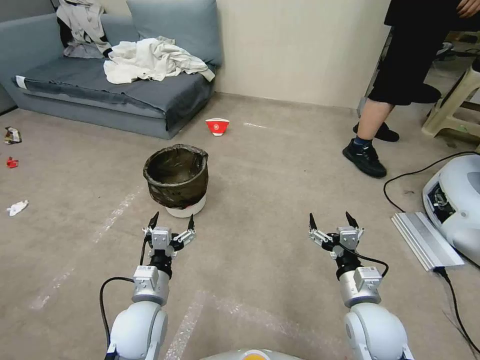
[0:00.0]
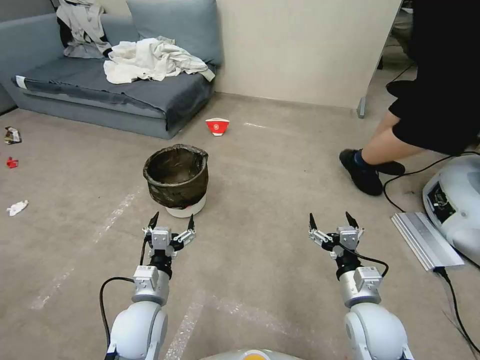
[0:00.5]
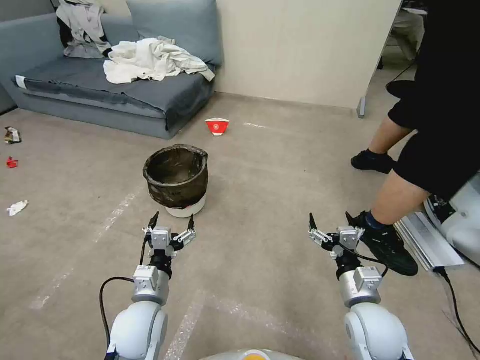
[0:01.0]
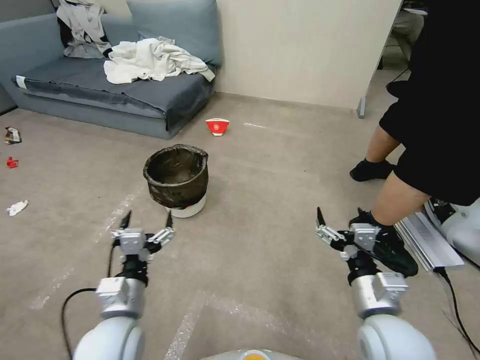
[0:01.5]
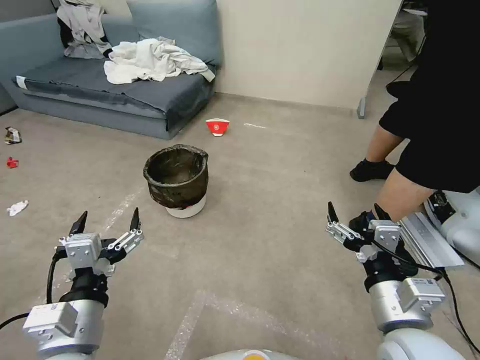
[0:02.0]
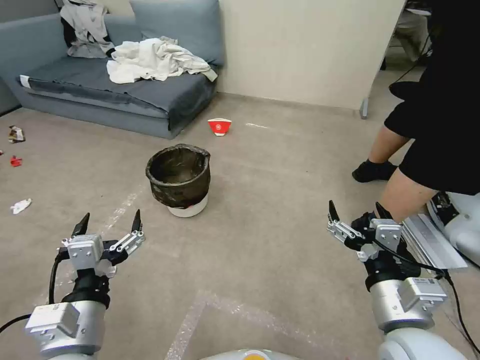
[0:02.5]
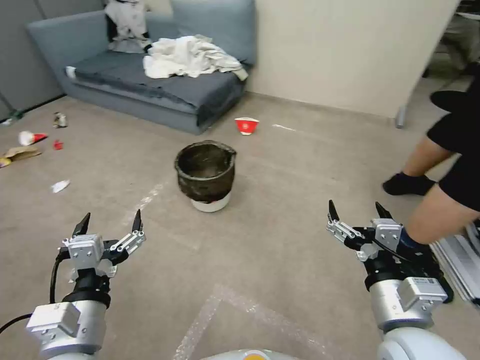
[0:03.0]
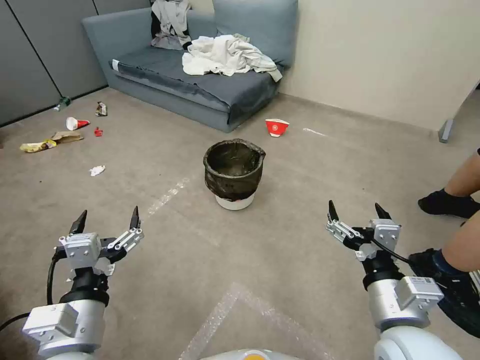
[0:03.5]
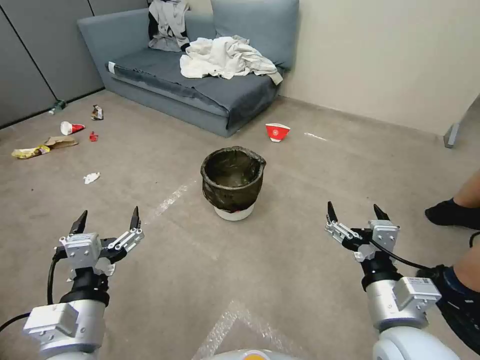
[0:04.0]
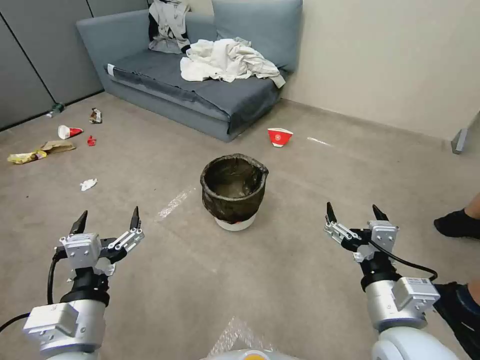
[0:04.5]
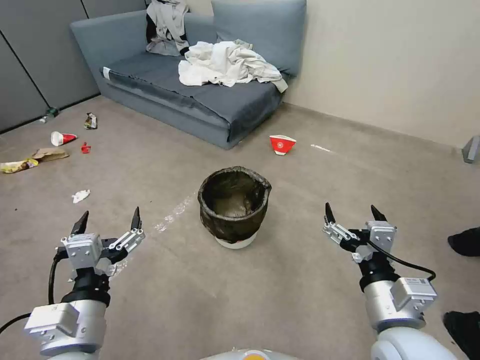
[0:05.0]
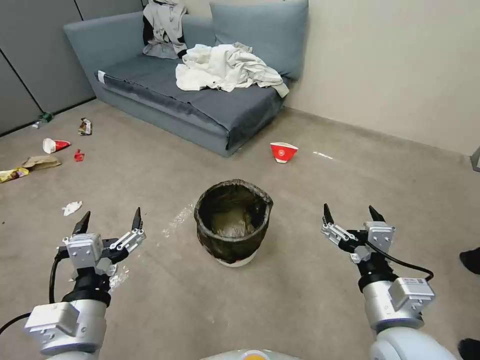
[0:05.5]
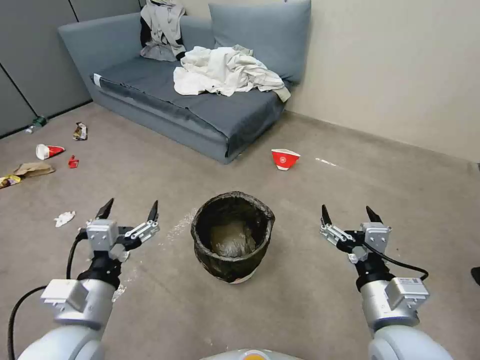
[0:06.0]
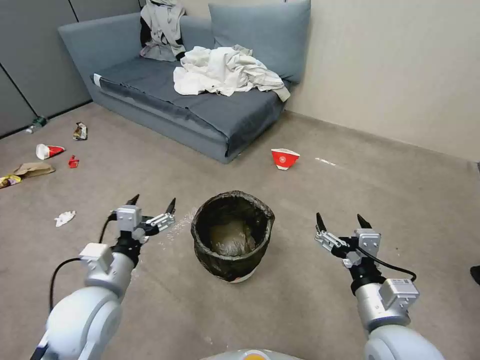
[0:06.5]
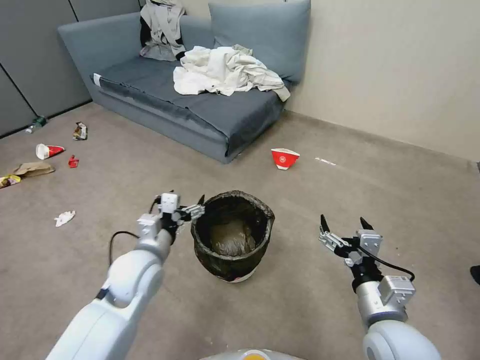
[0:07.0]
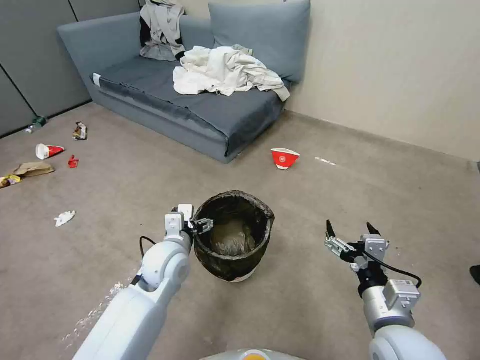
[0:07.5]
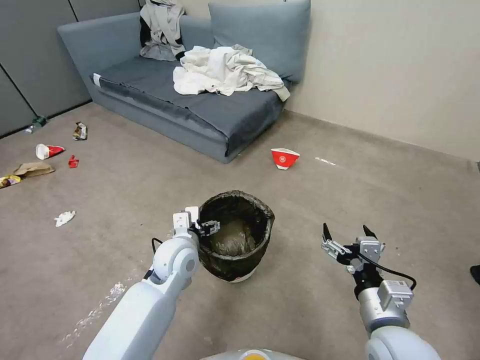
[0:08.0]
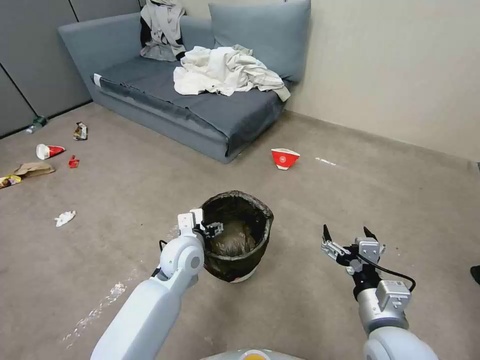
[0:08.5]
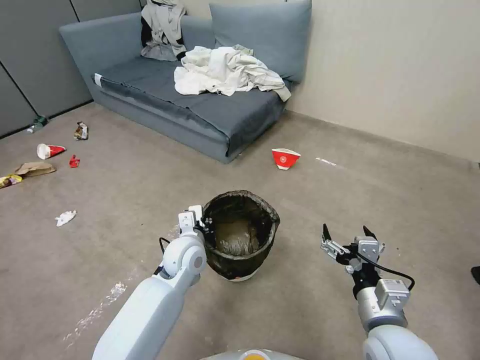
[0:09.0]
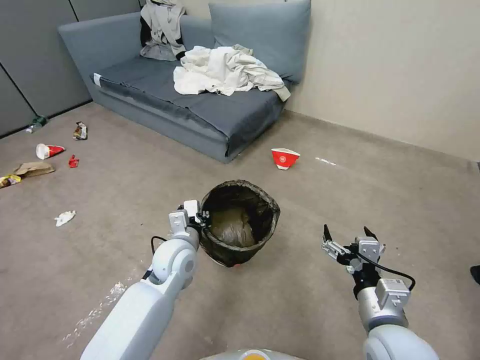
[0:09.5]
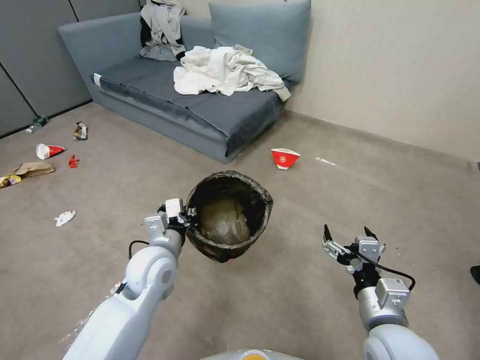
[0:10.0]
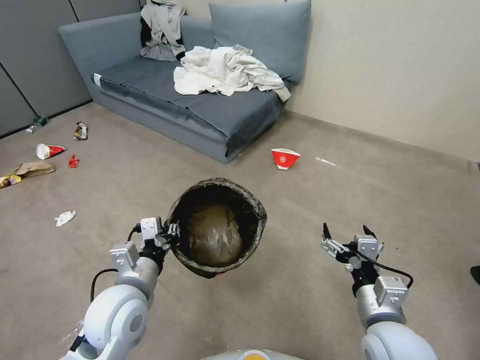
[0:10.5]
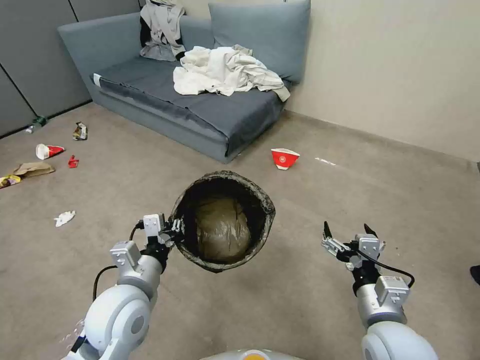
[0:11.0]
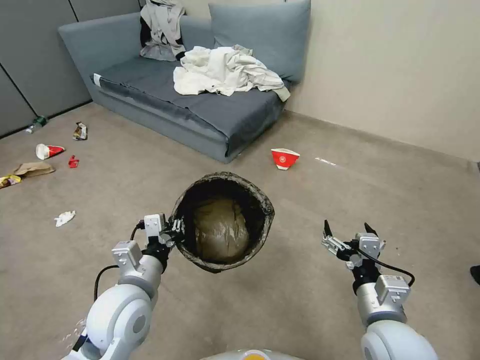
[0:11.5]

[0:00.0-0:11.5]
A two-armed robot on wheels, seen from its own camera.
Task of the whole recording: Pick up the trash can from the floor.
0:06.0 to 0:07.5: The left gripper is displaced forward, to the right and downward by roughly 20 cm. The right gripper travels downward by some 5 cm.
0:07.5 to 0:09.5: The left gripper closes.
0:09.5 to 0:11.5: The left gripper is displaced backward, to the left and upward by some 15 cm.
